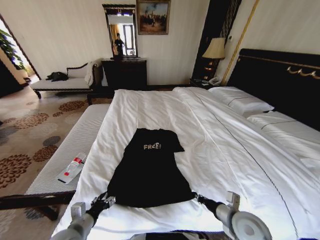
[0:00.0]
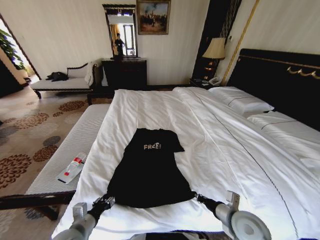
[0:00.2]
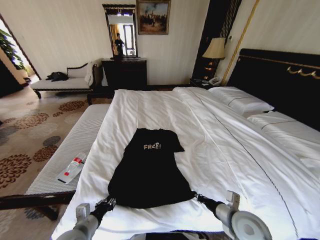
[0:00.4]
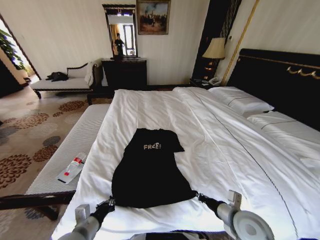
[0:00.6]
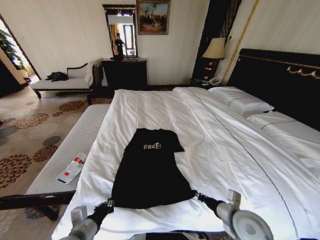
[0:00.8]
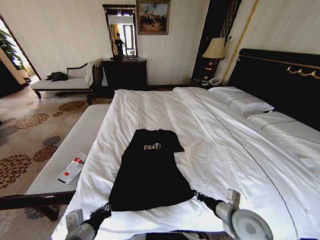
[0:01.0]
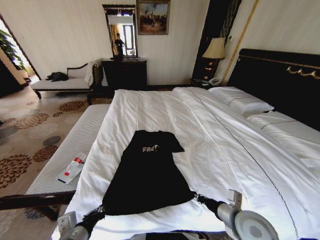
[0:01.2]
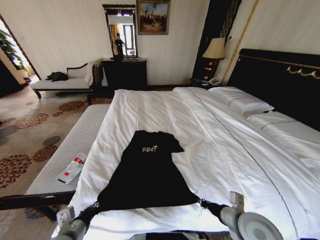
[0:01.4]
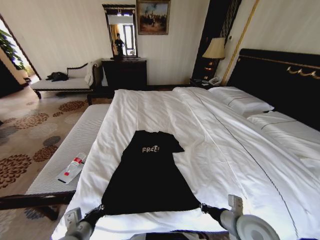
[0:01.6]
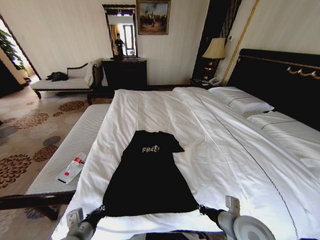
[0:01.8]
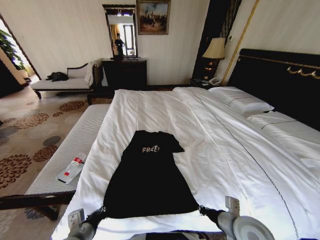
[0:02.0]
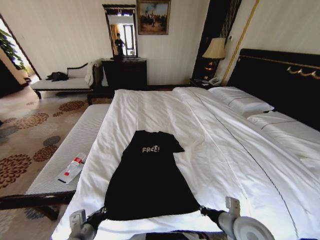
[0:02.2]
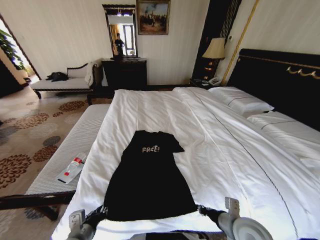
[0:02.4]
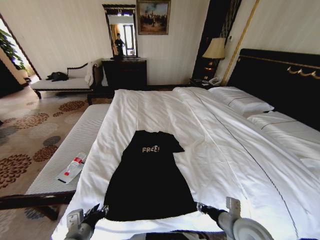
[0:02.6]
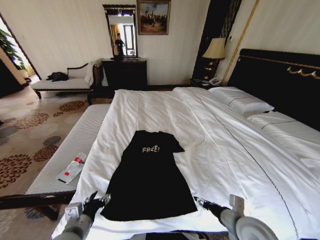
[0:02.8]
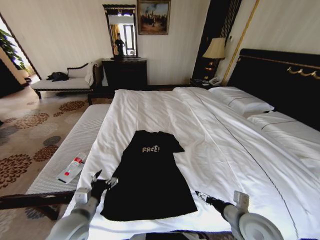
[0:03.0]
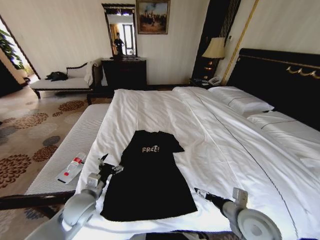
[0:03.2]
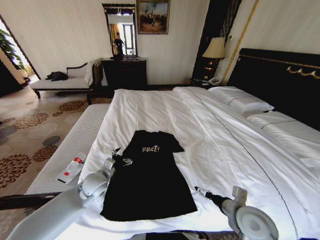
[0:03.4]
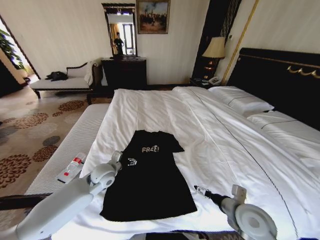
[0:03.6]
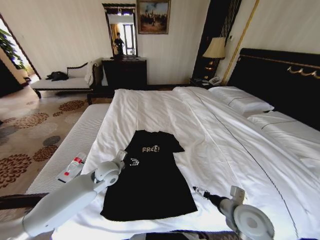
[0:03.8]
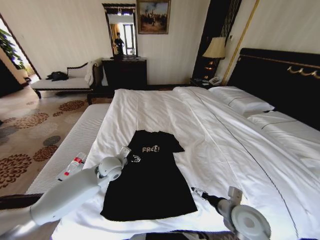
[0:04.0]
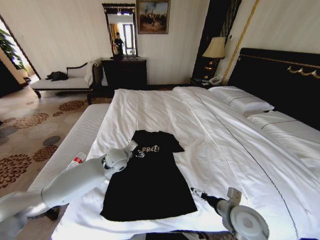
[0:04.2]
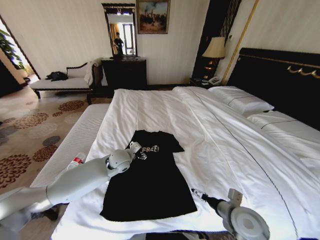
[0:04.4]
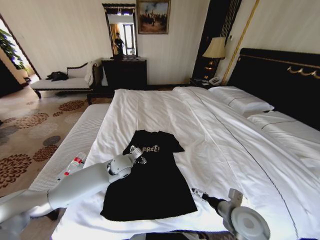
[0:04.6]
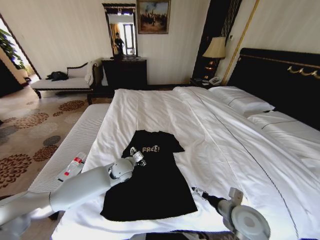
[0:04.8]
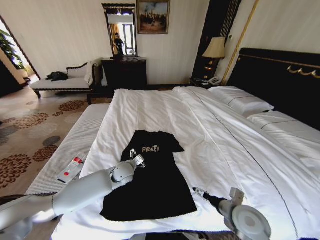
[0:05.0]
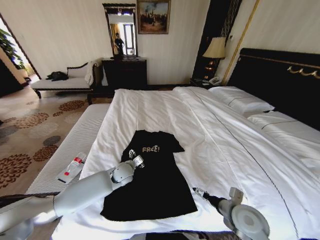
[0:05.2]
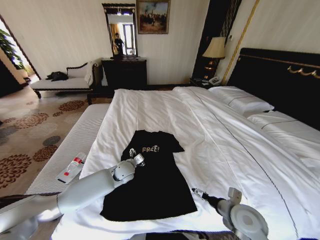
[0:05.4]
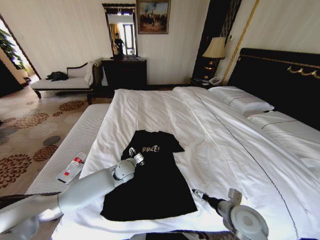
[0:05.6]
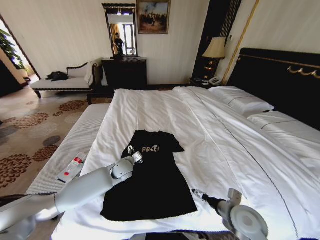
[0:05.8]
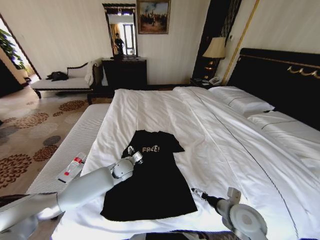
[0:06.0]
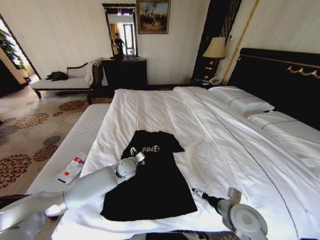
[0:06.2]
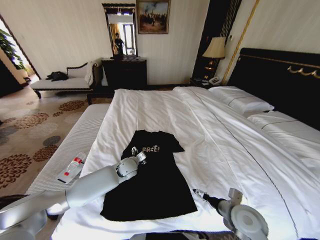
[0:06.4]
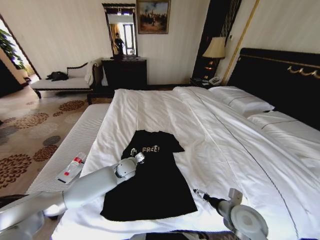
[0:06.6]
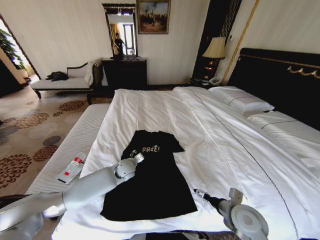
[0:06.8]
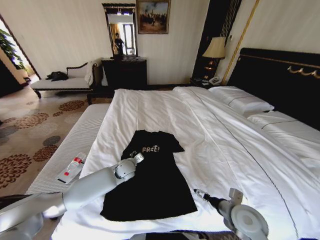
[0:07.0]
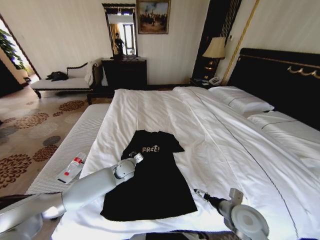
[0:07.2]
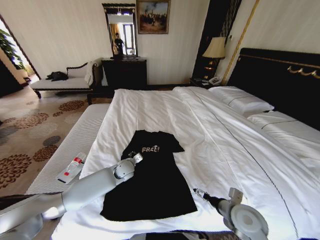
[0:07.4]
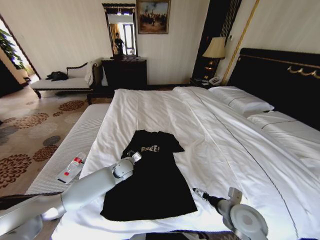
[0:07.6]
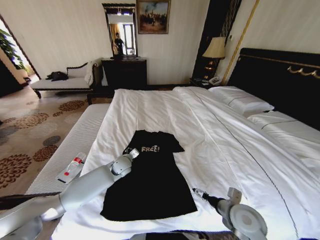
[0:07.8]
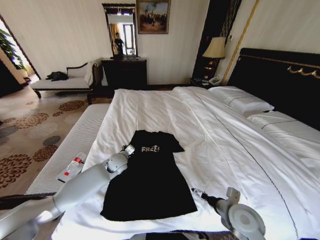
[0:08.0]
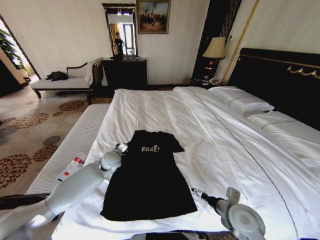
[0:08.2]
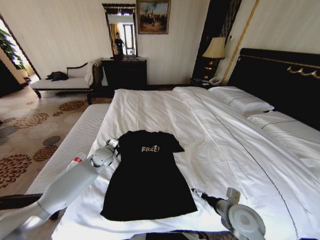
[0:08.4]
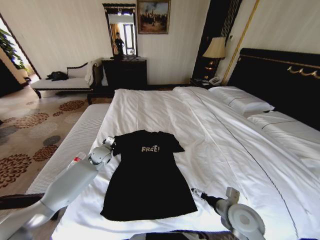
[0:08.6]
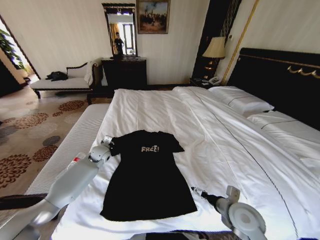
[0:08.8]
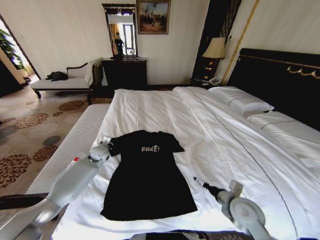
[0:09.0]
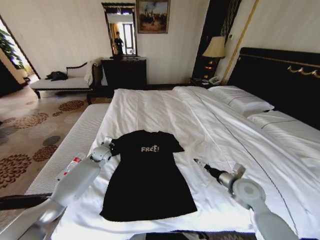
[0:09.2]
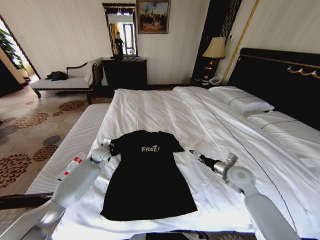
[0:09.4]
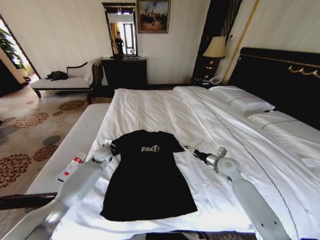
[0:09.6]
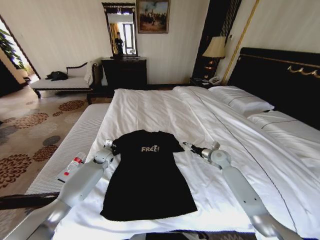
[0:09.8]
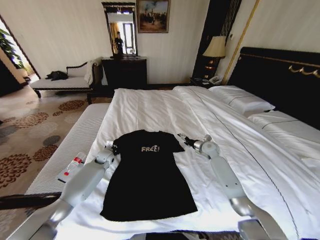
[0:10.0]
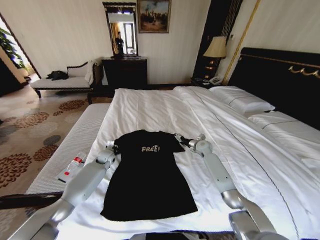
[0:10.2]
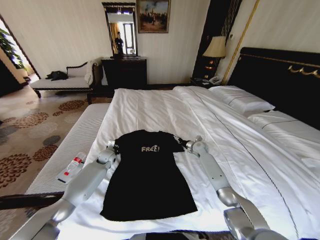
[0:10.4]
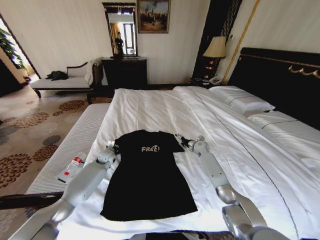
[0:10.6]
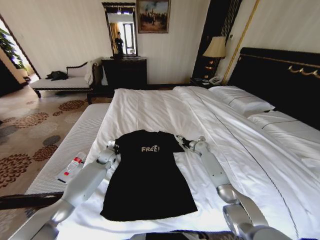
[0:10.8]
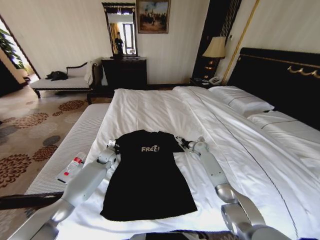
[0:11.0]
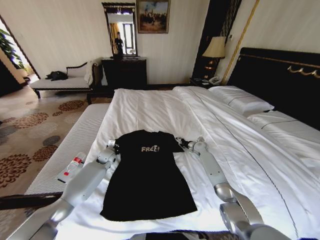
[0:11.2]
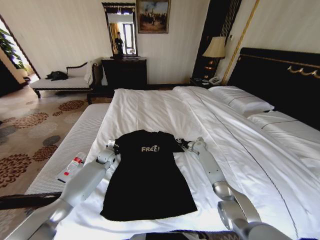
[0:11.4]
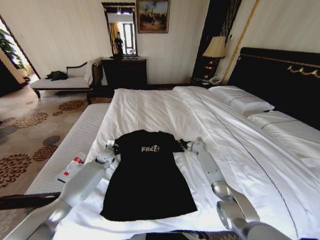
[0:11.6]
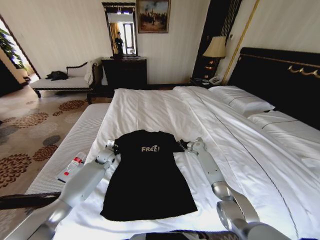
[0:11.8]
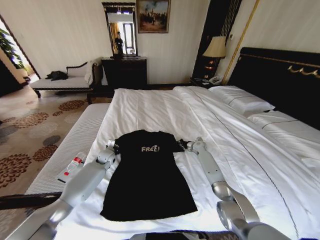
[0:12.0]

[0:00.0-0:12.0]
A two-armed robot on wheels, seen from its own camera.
Task of the whole recording: Fold the clothes on the bed.
0:00.0 to 0:01.6: The left gripper closes its fingers.
0:01.6 to 0:03.0: The left gripper shifts by roughly 5 cm, and opens its fingers. The right gripper opens its fingers.
0:03.0 to 0:04.4: The left gripper travels forward and to the right by approximately 25 cm.
0:04.4 to 0:06.0: The left gripper goes some 5 cm downward.
0:06.0 to 0:07.6: The left gripper closes up.
0:07.6 to 0:09.0: The left gripper is displaced to the left and forward by roughly 15 cm.
0:09.0 to 0:10.4: The left gripper ends up approximately 5 cm from where it was; the right gripper travels forward by some 35 cm.
0:10.4 to 0:12.0: The right gripper closes its fingers.

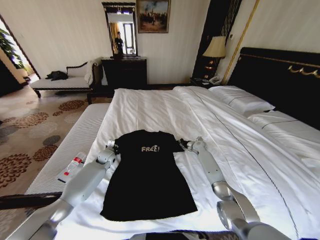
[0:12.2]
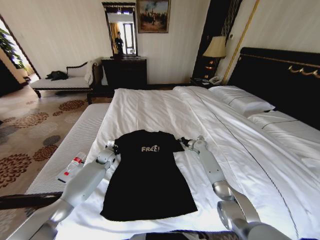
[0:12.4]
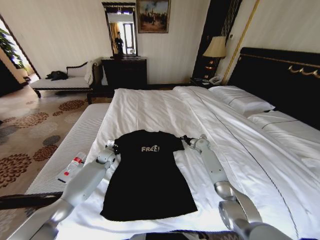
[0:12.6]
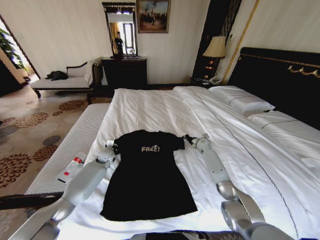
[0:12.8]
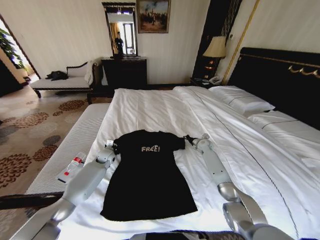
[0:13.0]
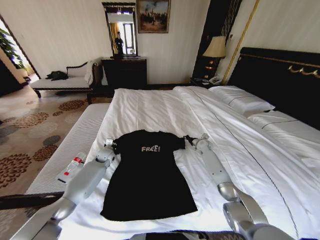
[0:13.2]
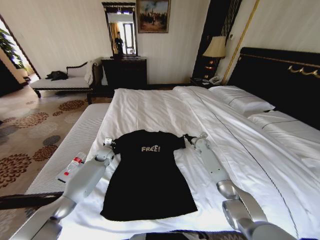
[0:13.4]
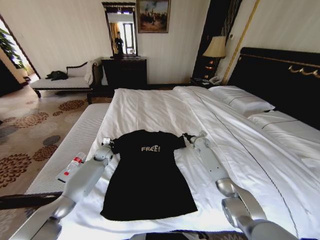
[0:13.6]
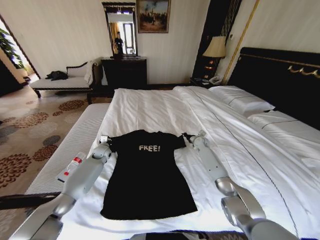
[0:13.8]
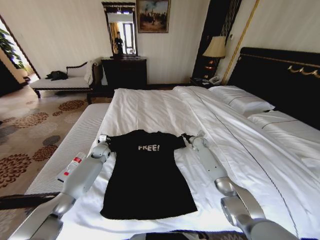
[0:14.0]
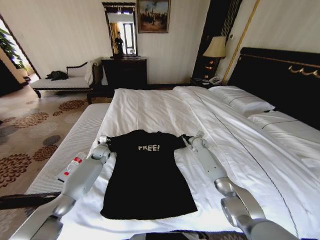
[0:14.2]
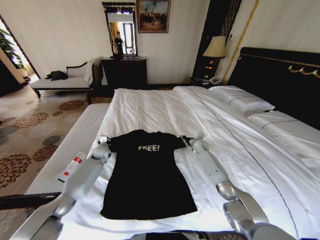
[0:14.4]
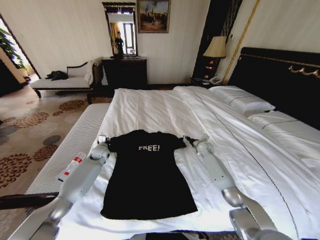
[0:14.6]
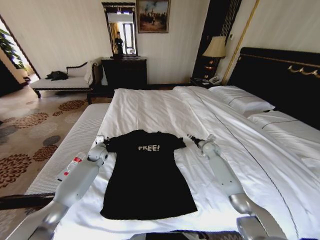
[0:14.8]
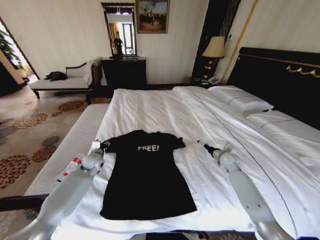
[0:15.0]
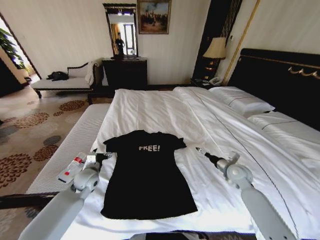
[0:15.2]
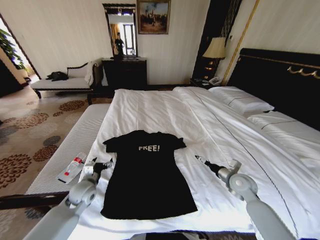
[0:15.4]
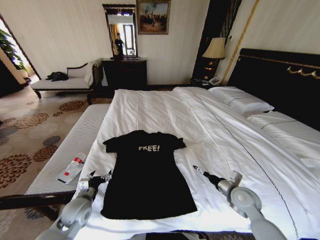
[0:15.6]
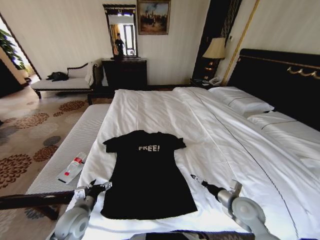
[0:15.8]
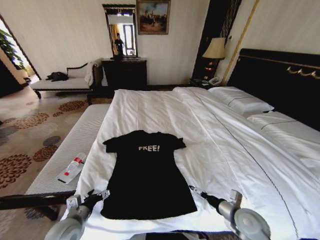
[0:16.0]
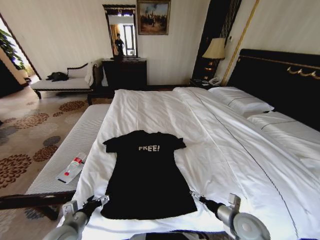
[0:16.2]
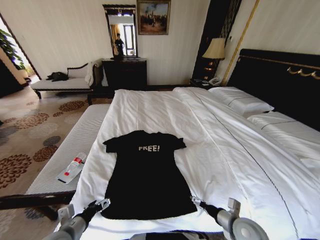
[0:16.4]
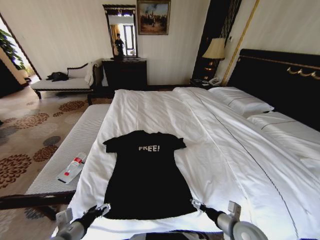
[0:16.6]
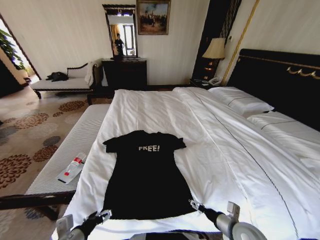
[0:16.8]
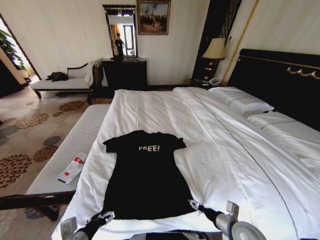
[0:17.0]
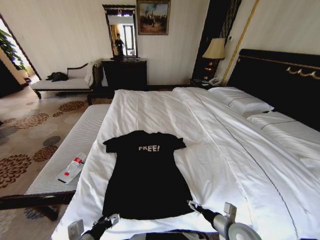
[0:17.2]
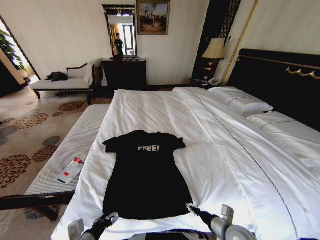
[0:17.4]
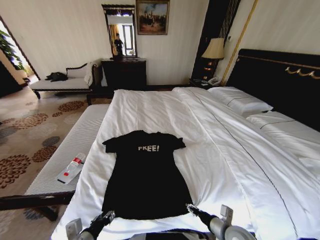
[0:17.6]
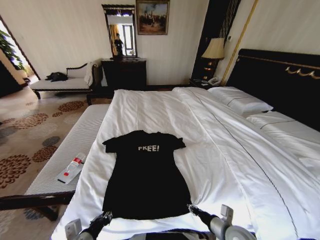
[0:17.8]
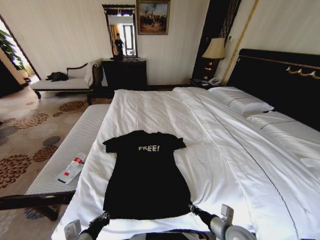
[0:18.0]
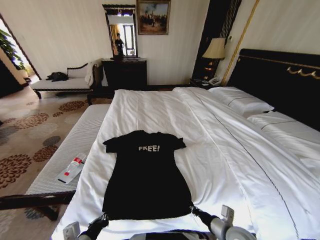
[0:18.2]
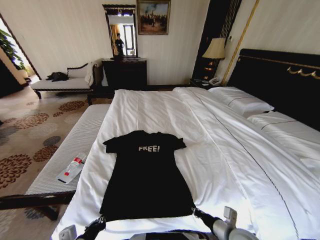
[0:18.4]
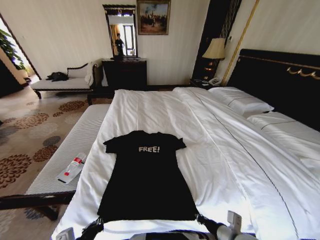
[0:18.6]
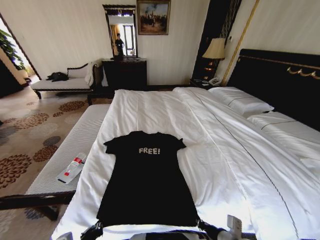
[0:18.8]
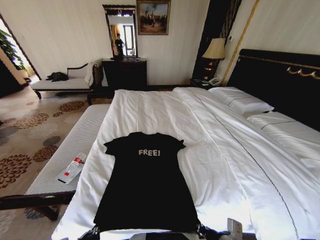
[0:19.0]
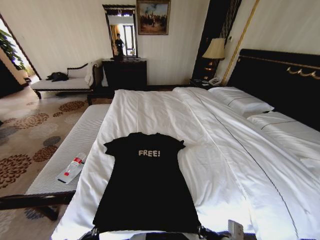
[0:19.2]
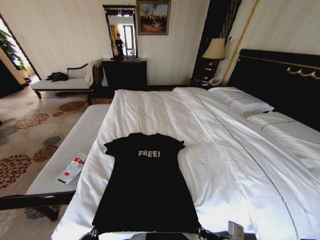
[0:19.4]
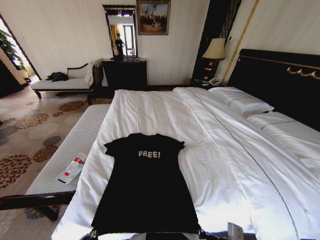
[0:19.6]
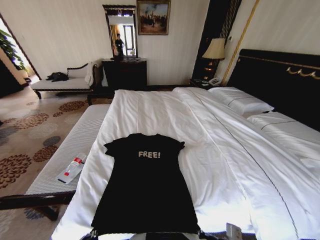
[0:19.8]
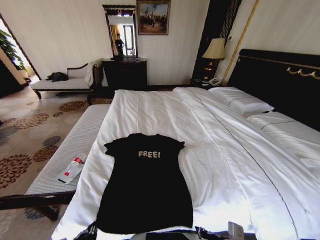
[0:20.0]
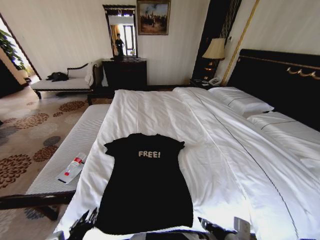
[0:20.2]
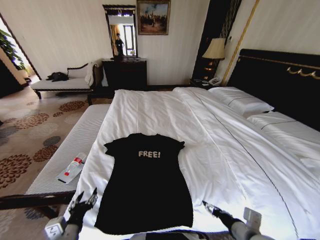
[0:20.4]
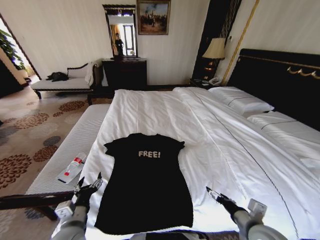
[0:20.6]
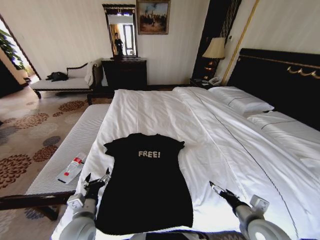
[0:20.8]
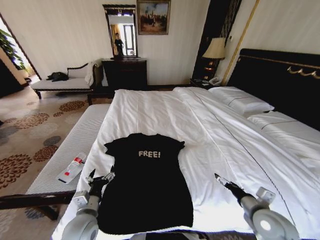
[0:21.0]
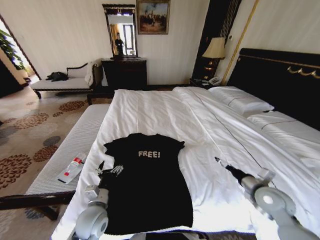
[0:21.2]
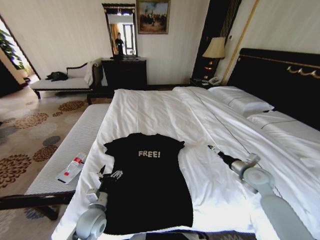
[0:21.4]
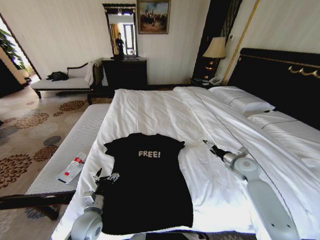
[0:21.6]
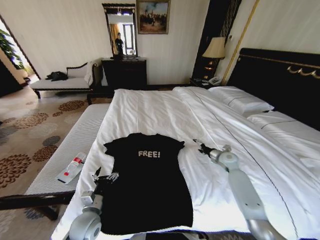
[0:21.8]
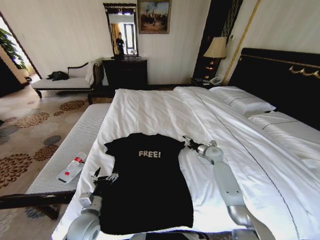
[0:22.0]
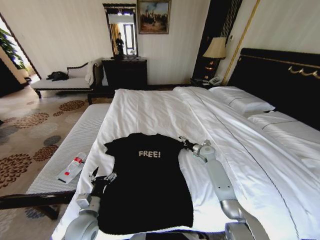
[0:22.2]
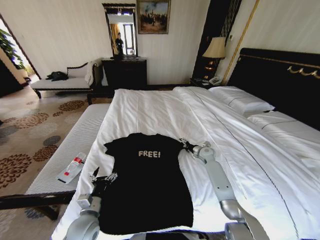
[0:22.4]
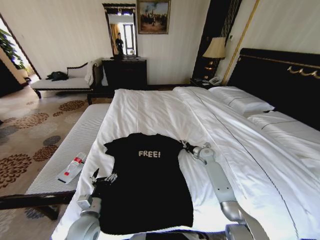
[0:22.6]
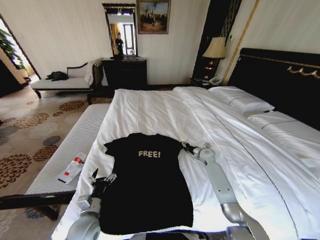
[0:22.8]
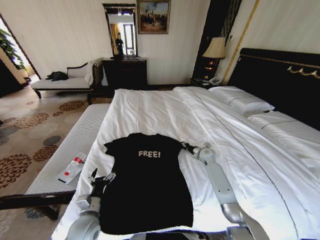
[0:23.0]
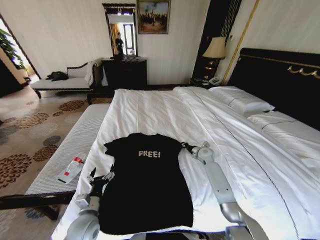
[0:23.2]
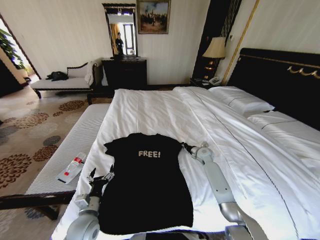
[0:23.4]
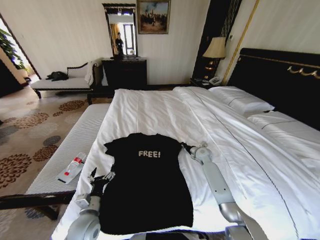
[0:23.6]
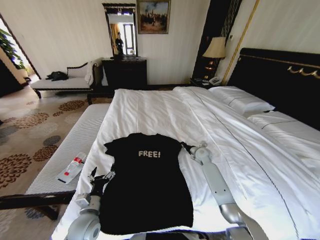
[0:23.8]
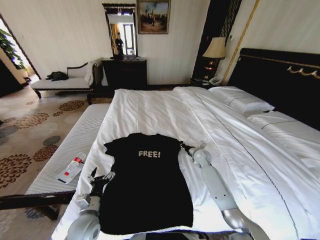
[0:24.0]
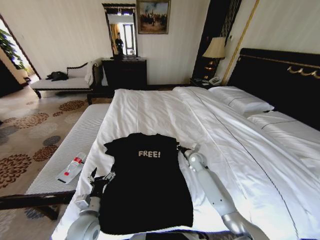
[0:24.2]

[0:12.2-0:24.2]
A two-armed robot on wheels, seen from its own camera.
Task of the whole recording: Fold the clothes on the bed.
0:12.2 to 0:13.8: There are only small adjustments of the grippers.
0:13.8 to 0:15.2: The grippers both shift backward by about 20 cm. The left gripper opens; the right gripper opens up.
0:15.2 to 0:16.6: Both grippers move backward, roughly 25 cm.
0:16.6 to 0:18.2: The left gripper ends up approximately 5 cm from where it was, and closes its fingers; the right gripper closes.
0:18.2 to 0:19.8: The right gripper shifts roughly 5 cm backward.
0:19.8 to 0:21.2: The left gripper shifts approximately 15 cm forward, and opens its fingers. The right gripper shifts about 20 cm forward and to the right, and opens.
0:21.2 to 0:22.6: The right gripper goes approximately 25 cm forward; the left gripper shifts by roughly 5 cm.
0:22.6 to 0:24.2: The right gripper goes about 10 cm to the left, and closes.
